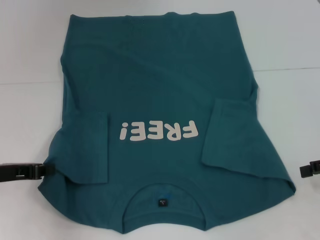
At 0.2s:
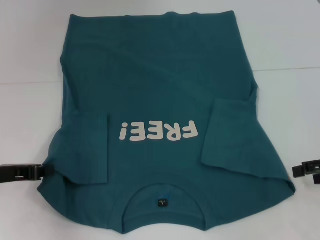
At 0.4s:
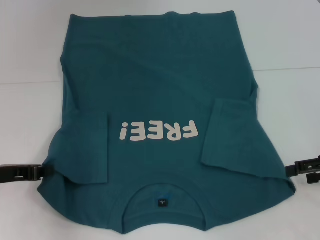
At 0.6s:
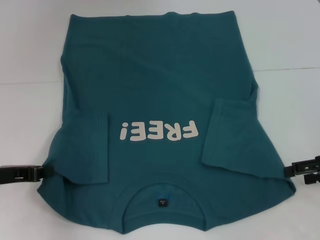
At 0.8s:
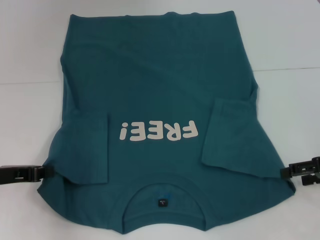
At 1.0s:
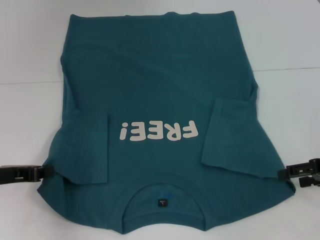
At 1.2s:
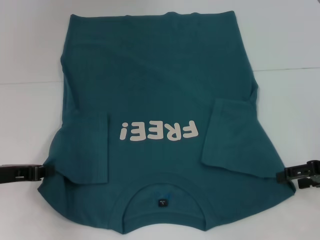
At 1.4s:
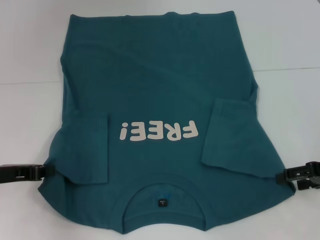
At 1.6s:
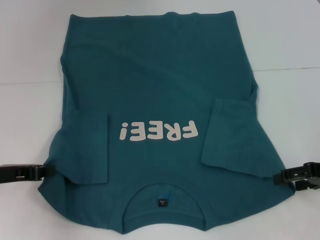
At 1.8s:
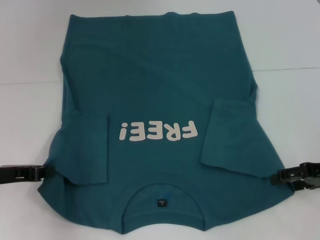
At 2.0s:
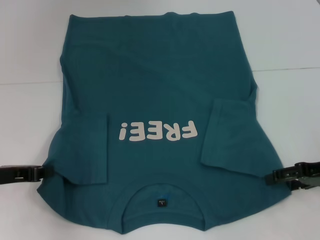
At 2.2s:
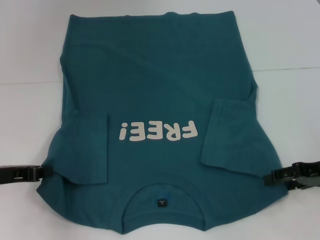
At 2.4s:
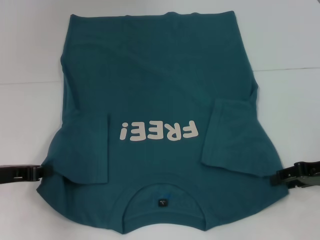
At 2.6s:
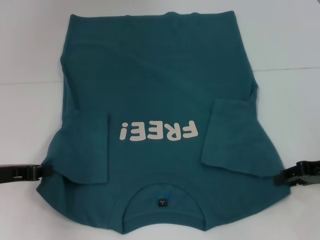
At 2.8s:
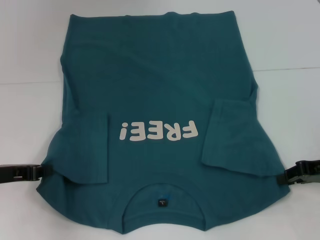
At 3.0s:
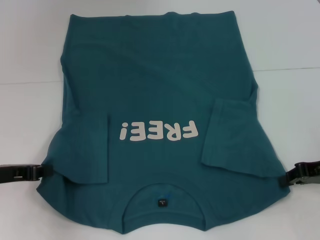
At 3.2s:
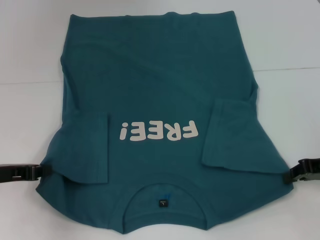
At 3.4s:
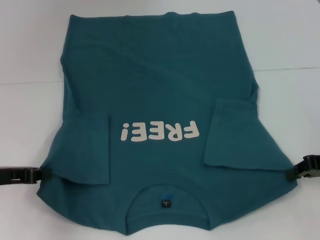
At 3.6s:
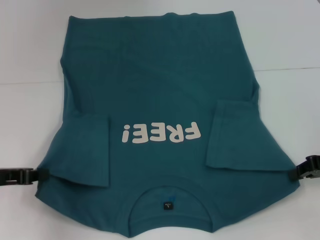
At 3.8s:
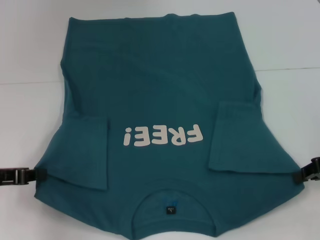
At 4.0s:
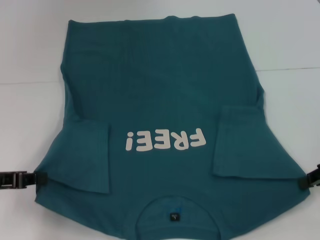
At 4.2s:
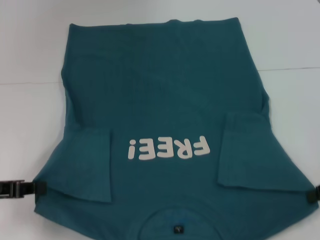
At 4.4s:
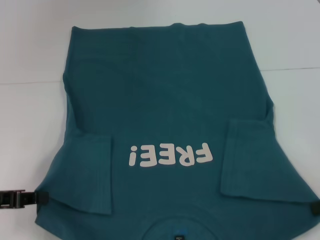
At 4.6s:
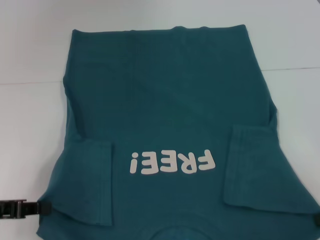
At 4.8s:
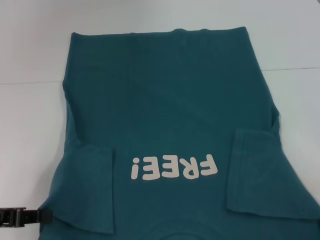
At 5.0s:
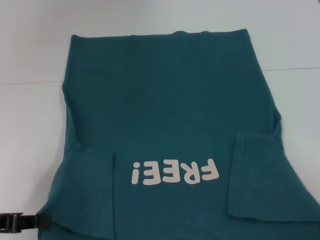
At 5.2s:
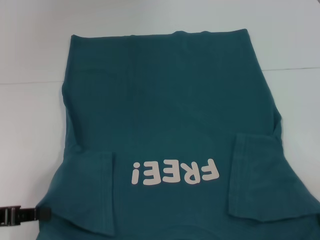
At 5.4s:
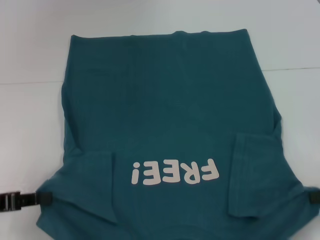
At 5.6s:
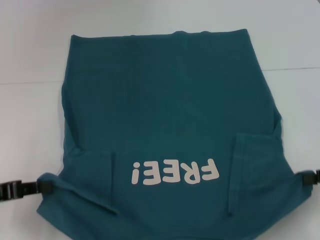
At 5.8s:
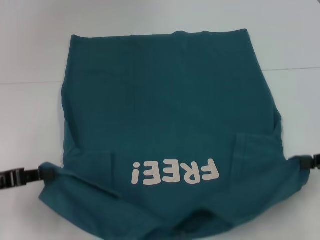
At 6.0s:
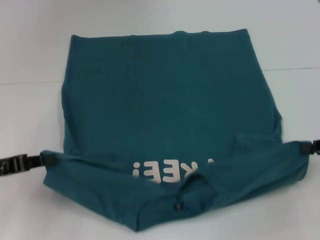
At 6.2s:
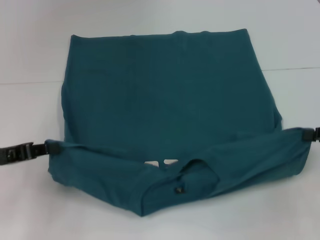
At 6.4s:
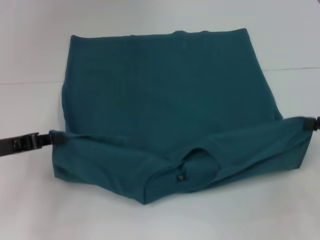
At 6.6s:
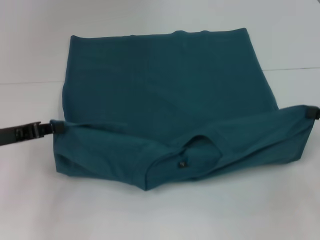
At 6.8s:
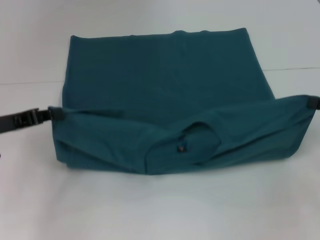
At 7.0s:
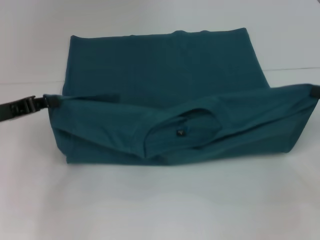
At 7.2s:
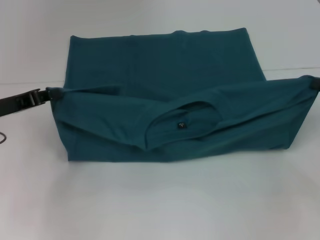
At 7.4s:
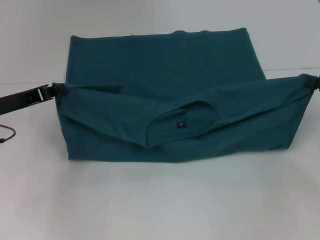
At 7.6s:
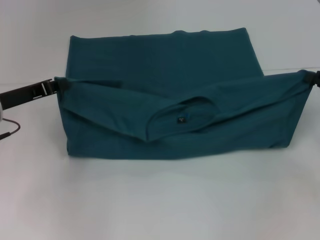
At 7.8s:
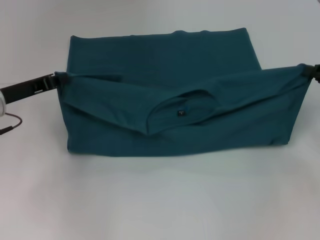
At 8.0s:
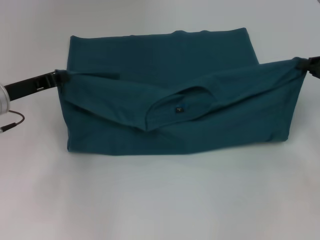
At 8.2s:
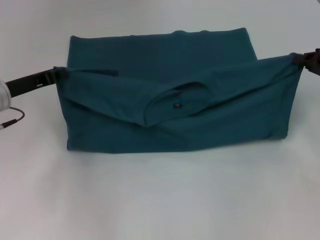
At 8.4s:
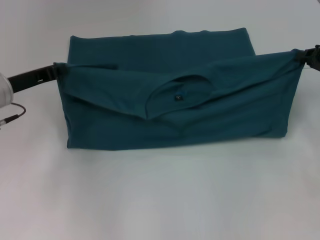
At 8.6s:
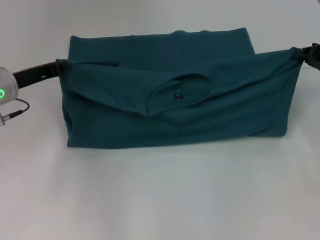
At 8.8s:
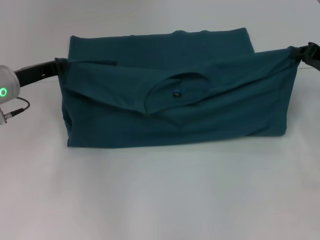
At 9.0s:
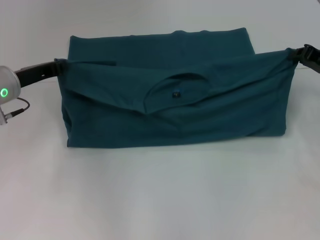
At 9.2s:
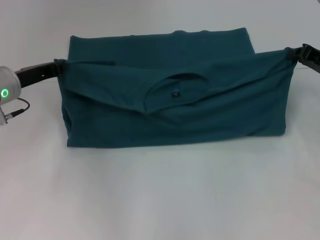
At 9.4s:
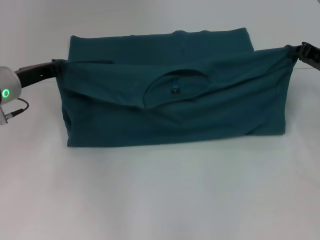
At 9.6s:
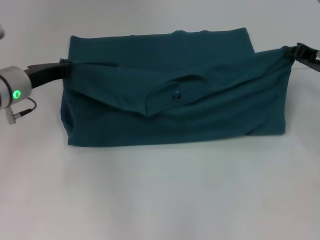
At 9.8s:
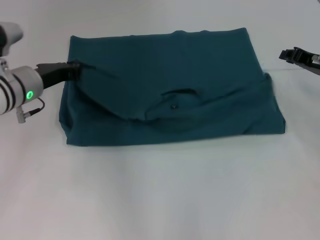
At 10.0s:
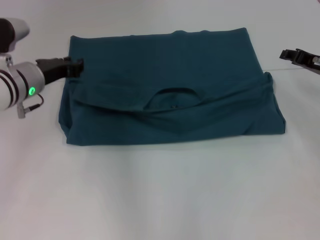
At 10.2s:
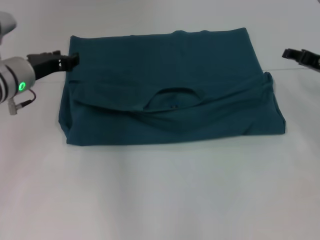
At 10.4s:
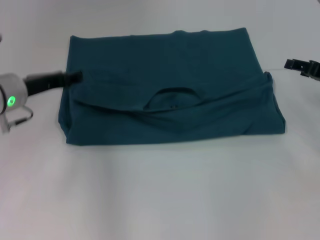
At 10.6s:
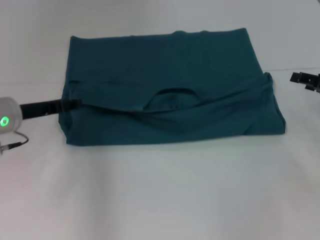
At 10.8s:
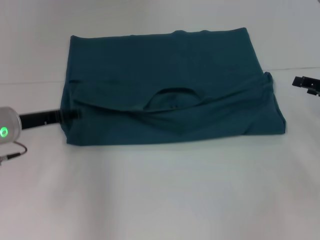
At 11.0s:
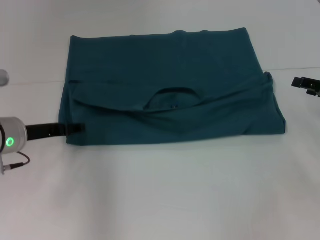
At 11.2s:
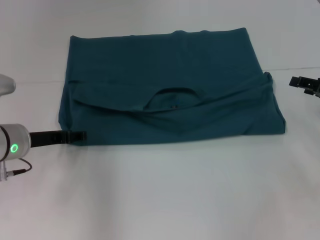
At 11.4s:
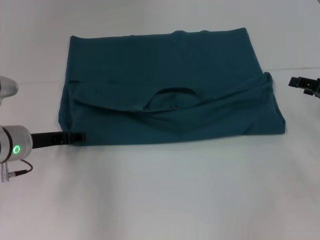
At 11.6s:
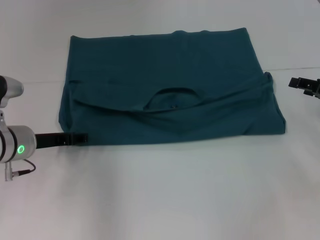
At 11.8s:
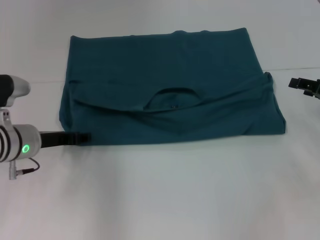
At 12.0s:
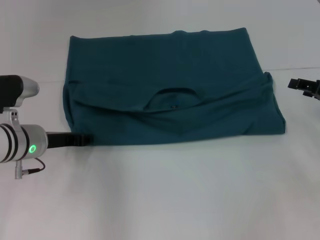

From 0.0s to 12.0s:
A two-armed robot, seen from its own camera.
Step, from 3.2s to 10.0s: Fold the clothes to the left.
Step, from 3.2s to 10.0s: Fold the clothes to the right.
From 0.0s to 1.6s: There are only small adjustments of the grippers.
From 1.6s to 3.0s: The right gripper closes its fingers.
From 3.0s to 4.4s: The right gripper moves backward, some 5 cm.
From 6.0s to 7.6s: The left gripper shifts roughly 10 cm forward. The right gripper goes approximately 5 cm forward.
From 7.6s to 9.0s: The right gripper is displaced forward by roughly 5 cm.
From 9.0s to 10.4s: The right gripper opens its fingers, while the left gripper opens.
From 10.4s to 12.0s: The left gripper travels downward by approximately 5 cm.

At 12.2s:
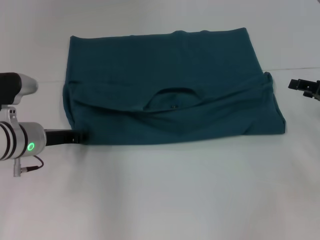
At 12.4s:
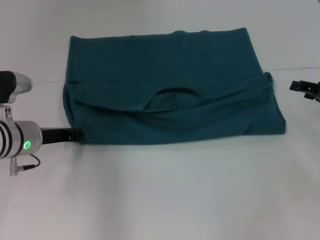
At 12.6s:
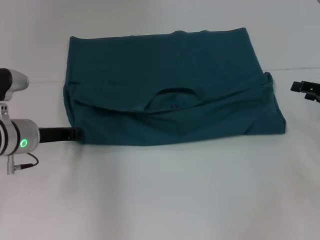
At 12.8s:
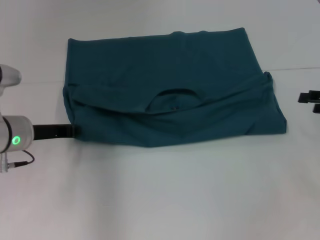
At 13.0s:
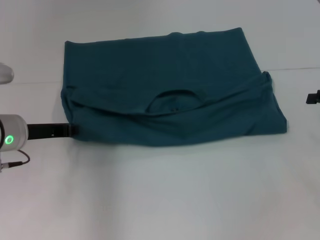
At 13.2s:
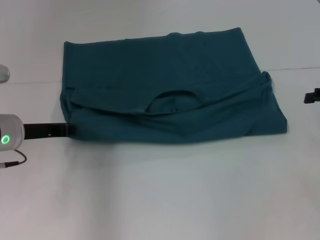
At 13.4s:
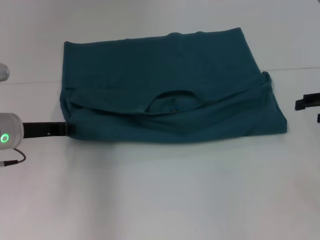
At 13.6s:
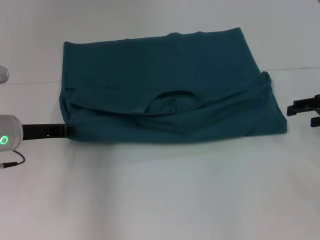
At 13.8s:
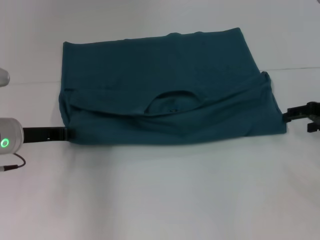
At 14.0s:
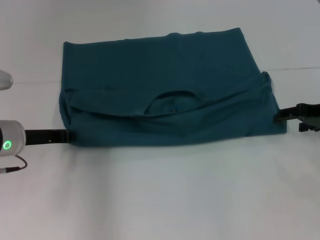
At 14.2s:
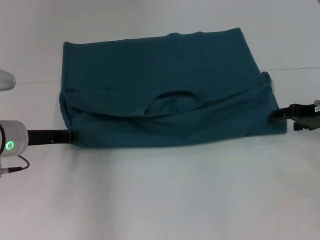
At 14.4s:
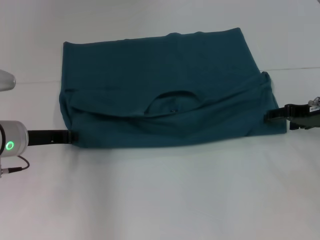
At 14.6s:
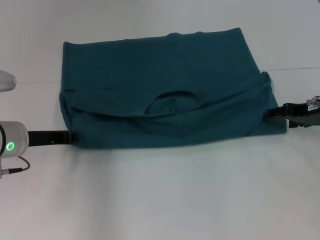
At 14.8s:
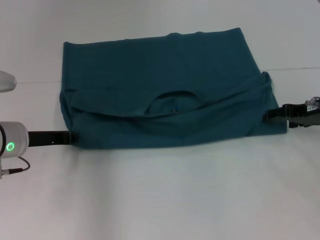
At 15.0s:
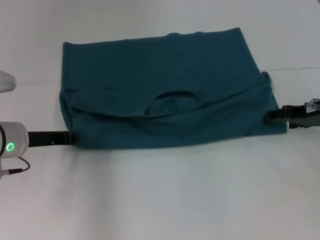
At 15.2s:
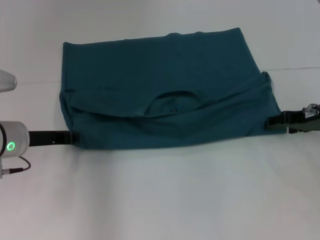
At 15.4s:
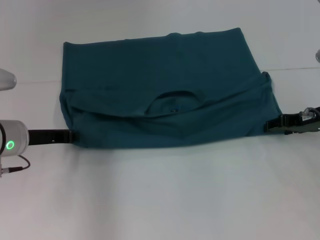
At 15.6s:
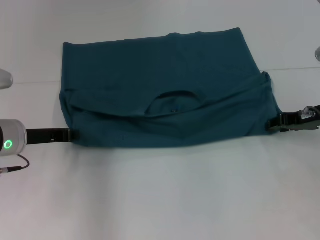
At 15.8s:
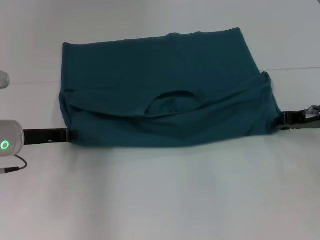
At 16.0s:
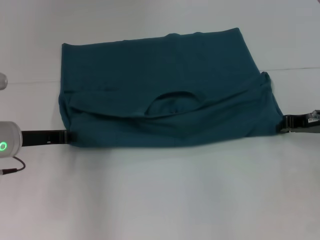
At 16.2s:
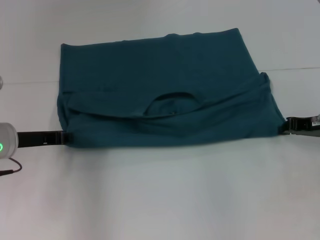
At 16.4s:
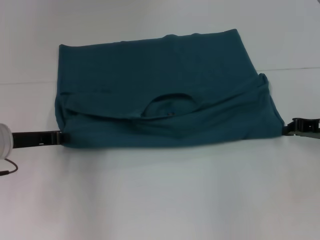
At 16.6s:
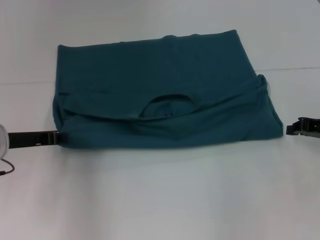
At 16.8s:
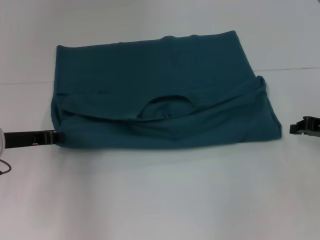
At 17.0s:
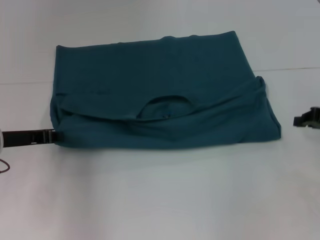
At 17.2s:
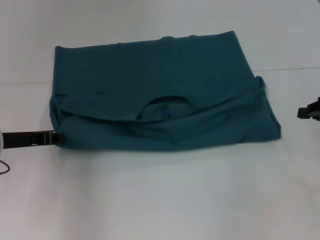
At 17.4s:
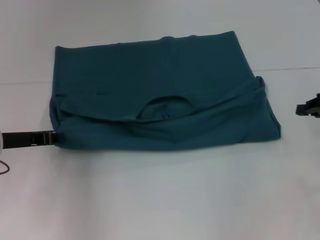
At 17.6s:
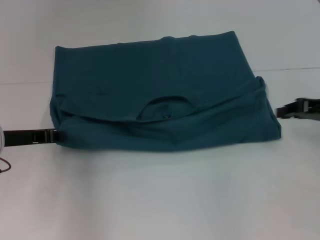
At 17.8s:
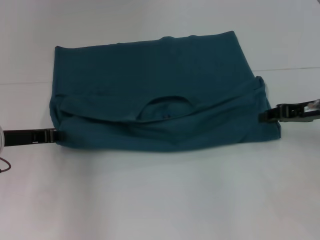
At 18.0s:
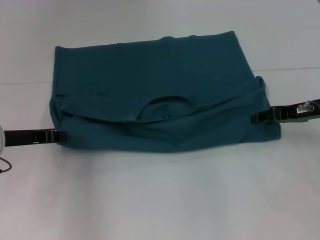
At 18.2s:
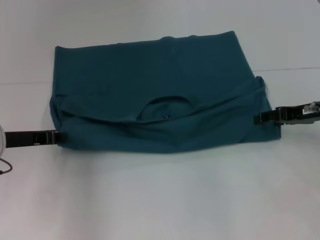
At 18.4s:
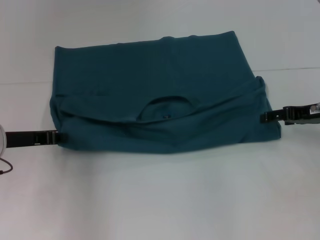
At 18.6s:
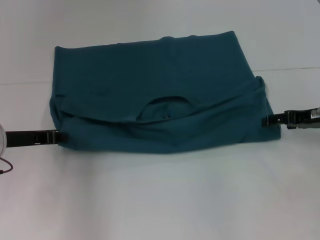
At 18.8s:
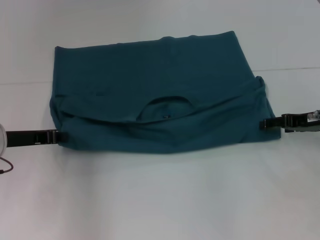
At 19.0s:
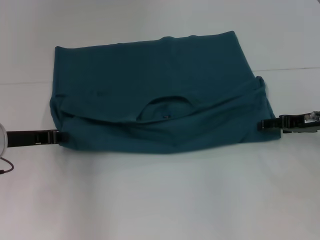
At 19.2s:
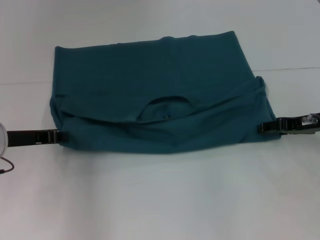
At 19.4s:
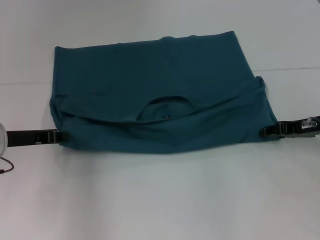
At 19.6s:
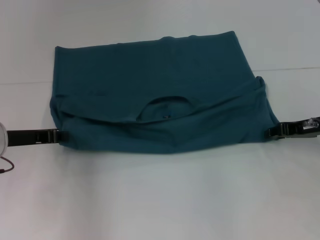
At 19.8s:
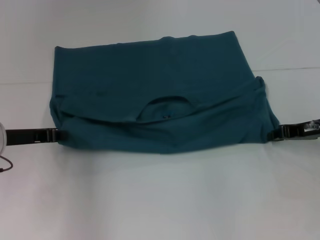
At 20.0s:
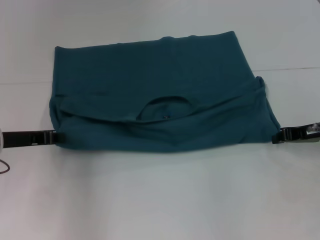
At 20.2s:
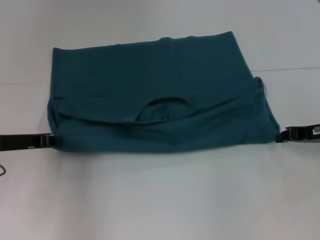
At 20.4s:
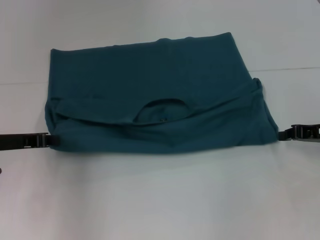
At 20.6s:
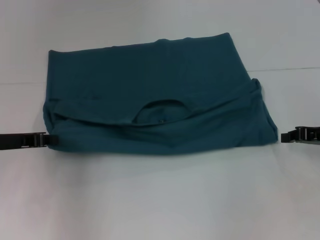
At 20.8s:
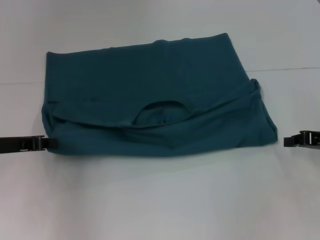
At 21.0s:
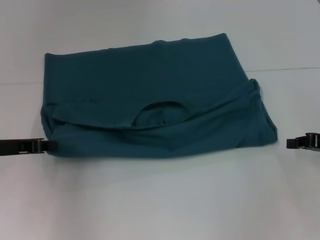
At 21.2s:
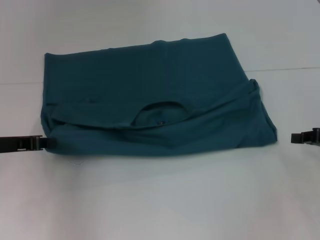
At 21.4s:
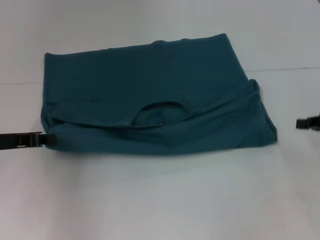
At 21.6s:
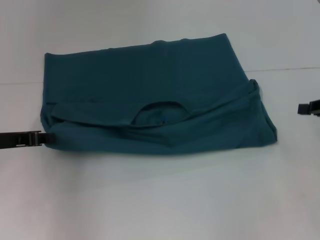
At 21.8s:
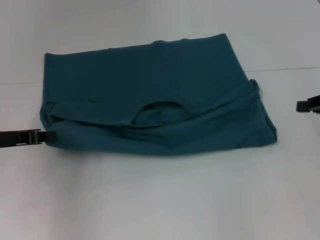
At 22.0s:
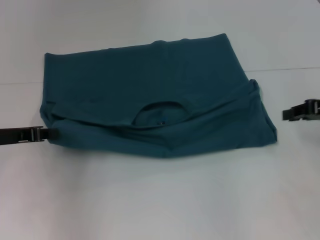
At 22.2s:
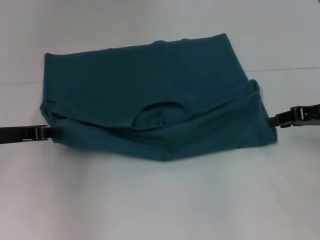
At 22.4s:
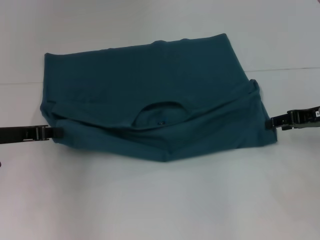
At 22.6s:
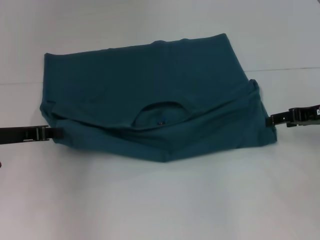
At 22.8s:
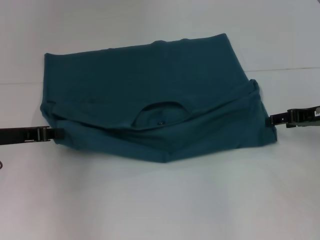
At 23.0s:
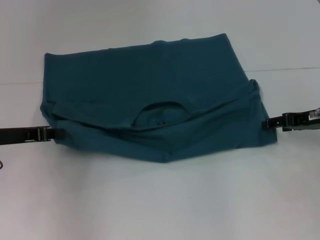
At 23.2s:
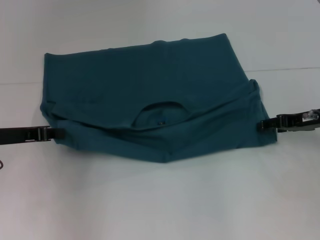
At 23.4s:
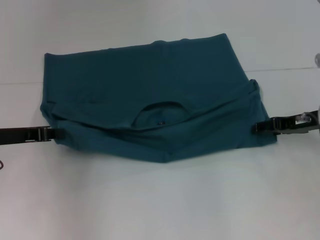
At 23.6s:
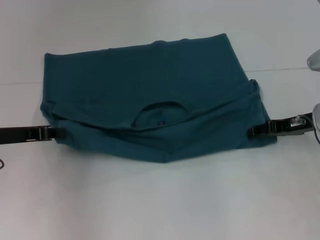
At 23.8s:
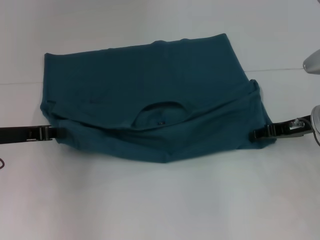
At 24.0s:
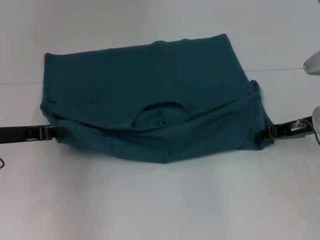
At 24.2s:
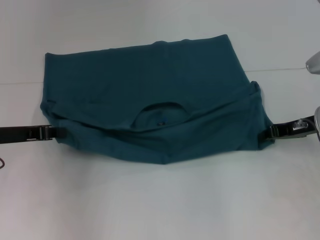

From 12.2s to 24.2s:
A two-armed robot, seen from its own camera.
From 12.2s to 13.8s: The left gripper closes up.
From 13.8s to 15.2s: The right gripper changes place by about 5 cm.
From 15.2s to 16.6s: The right gripper ends up approximately 5 cm from where it was, and closes up.
From 16.6s to 18.2s: The right gripper moves approximately 5 cm, and opens its fingers.
From 18.2s to 19.8s: The right gripper opens, then closes again.
From 19.8s to 21.2s: The right gripper is displaced backward and to the right by approximately 10 cm.
From 21.2s to 22.6s: The right gripper heads forward, covering some 5 cm, and opens its fingers.
From 22.6s to 24.2s: The grippers move only a little.
